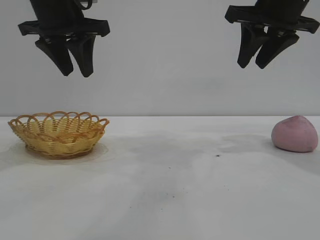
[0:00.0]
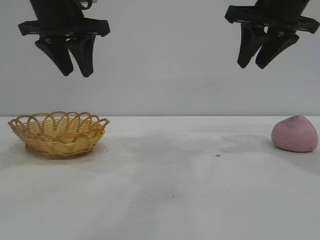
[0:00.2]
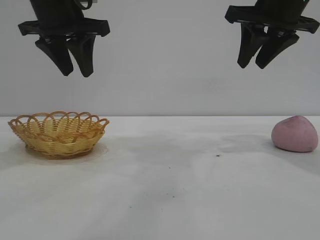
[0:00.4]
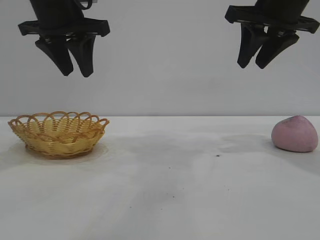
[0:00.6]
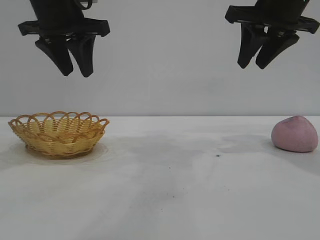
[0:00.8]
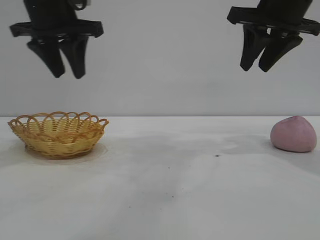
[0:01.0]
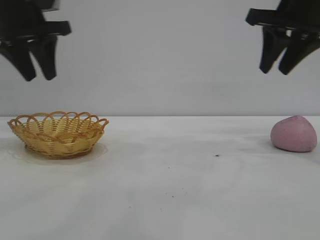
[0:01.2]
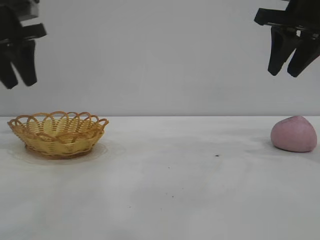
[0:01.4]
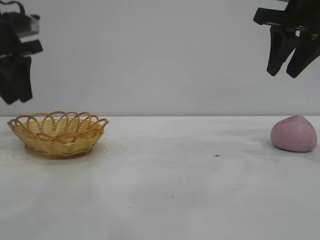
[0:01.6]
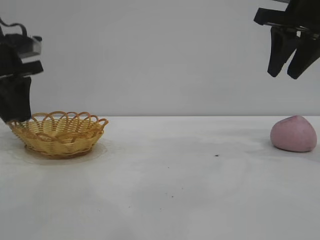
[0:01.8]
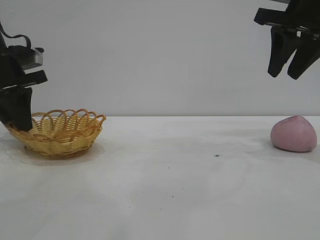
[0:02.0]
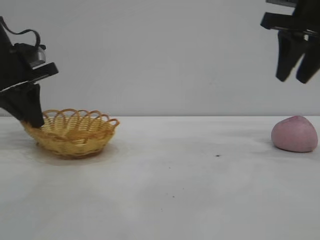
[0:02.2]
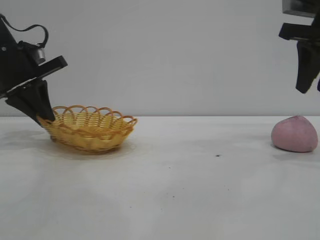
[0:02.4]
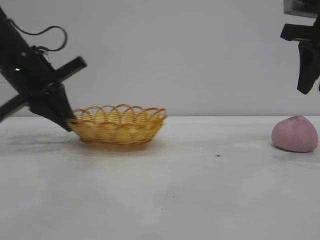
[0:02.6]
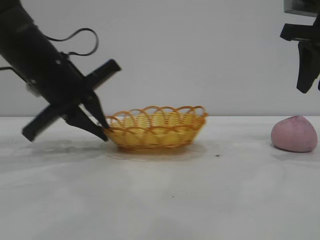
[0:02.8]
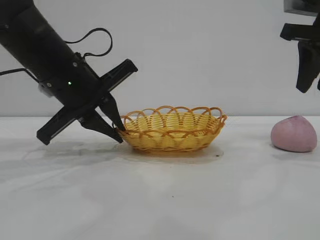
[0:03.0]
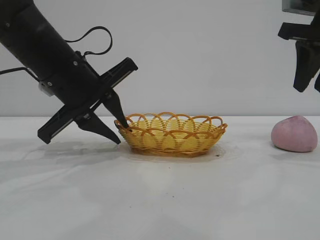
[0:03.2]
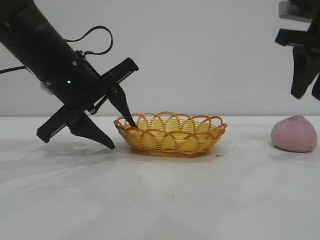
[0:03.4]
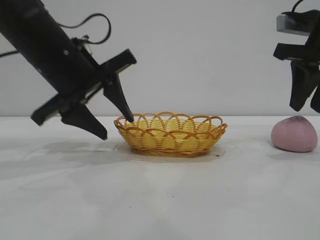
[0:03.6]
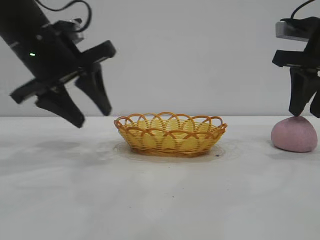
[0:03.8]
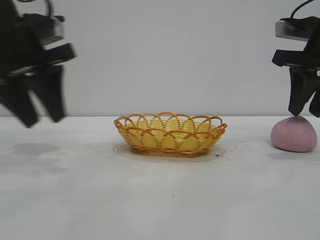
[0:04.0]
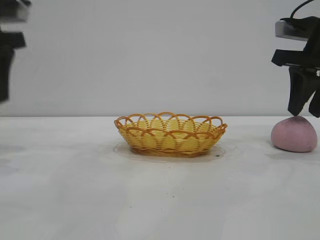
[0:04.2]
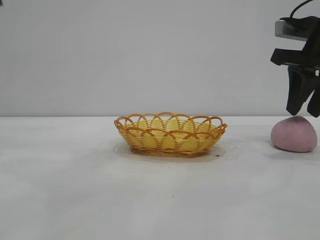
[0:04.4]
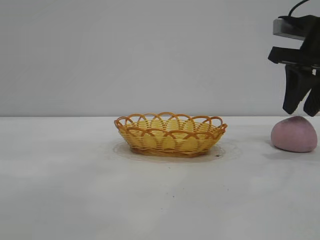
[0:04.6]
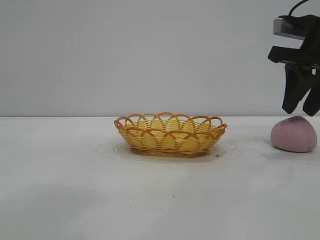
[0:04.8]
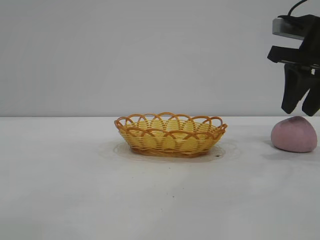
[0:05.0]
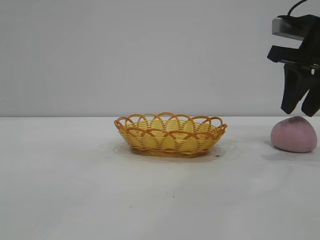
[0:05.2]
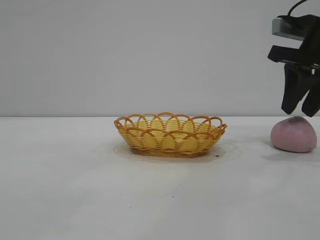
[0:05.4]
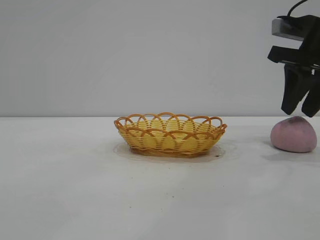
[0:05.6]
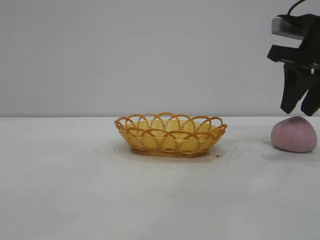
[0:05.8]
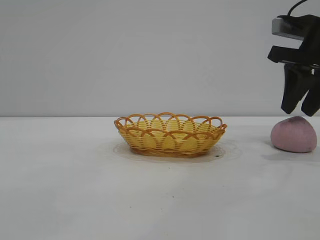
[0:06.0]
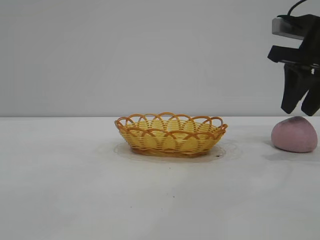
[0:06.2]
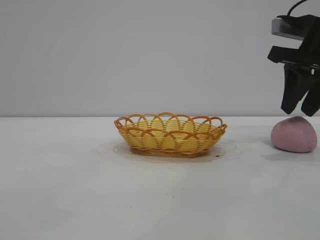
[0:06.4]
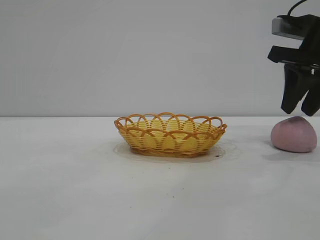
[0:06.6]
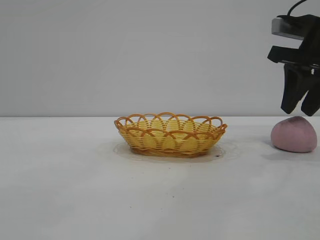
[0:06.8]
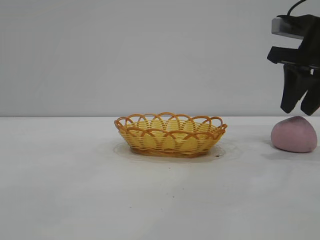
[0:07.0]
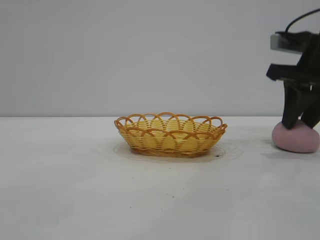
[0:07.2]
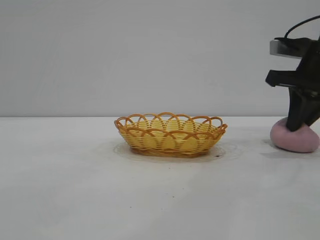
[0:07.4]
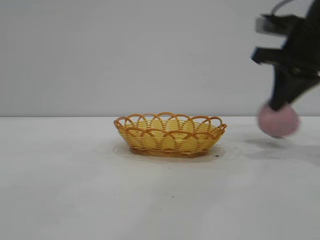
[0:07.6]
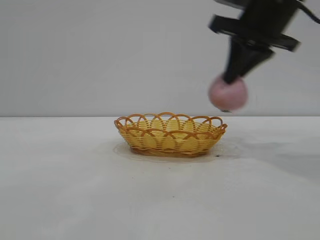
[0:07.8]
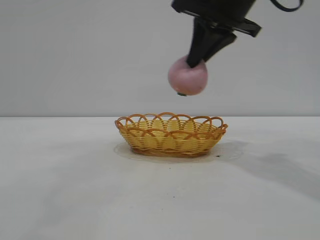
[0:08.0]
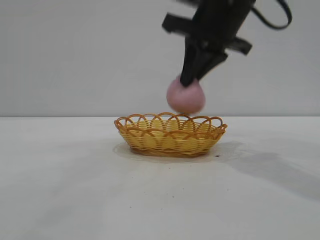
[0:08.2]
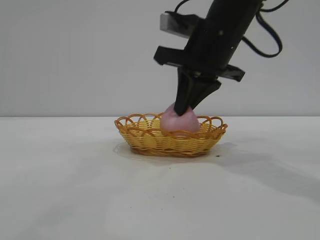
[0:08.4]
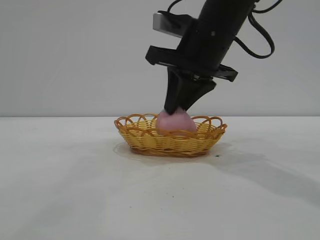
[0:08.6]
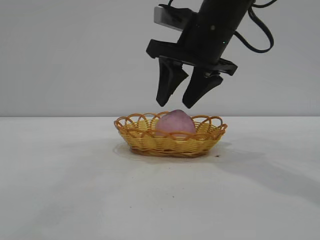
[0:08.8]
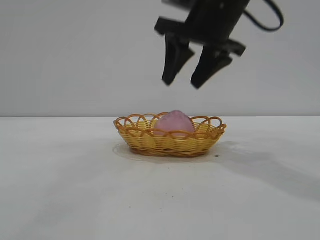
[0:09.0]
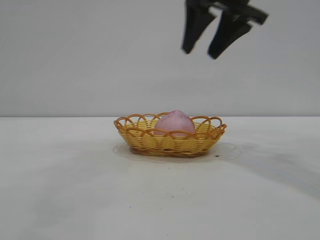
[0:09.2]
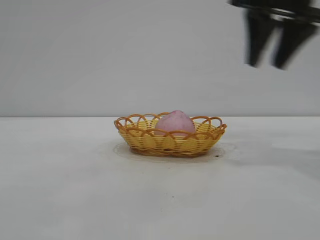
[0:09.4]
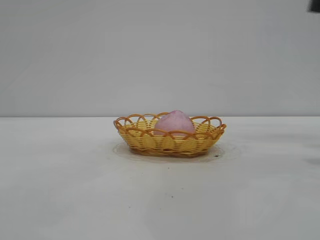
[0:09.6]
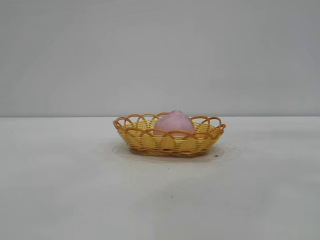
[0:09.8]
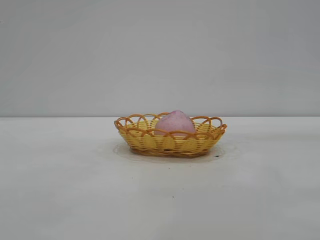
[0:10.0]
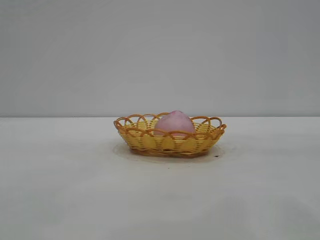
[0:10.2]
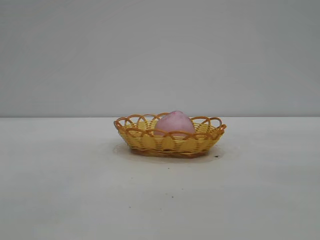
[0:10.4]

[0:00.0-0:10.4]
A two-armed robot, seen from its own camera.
Task of the whole recording: pick up the peach and put it into the basket.
Step, 0:00.0 to 0:03.8: Move the basket to the center of view.
Step, 0:04.0 to 0:07.6: Pick up the peach.
Step, 0:07.8 to 0:09.0: place the peach into the basket.
